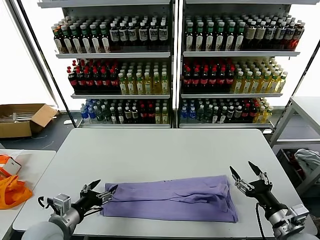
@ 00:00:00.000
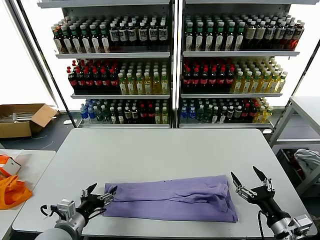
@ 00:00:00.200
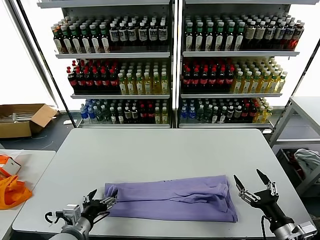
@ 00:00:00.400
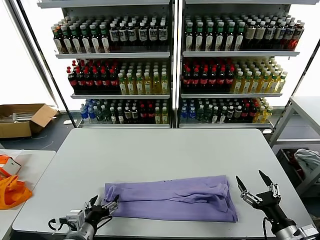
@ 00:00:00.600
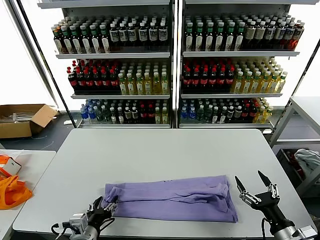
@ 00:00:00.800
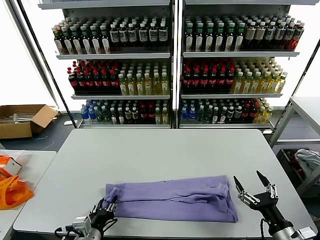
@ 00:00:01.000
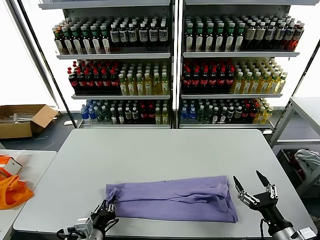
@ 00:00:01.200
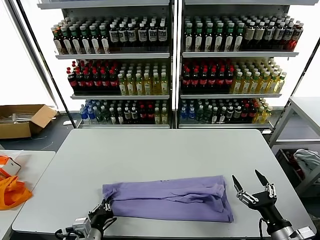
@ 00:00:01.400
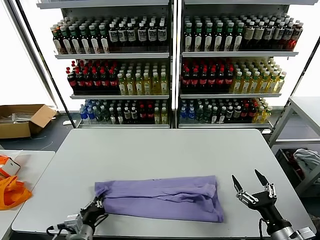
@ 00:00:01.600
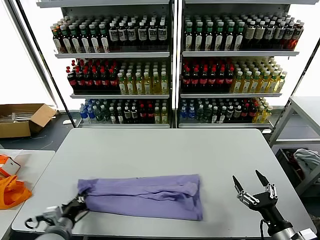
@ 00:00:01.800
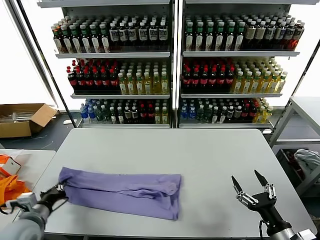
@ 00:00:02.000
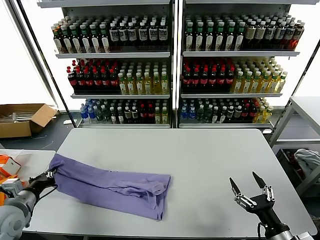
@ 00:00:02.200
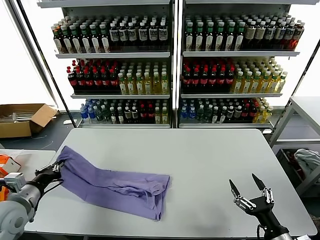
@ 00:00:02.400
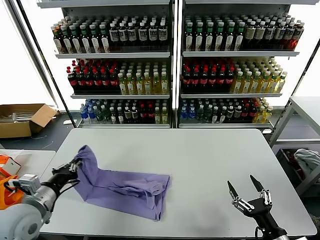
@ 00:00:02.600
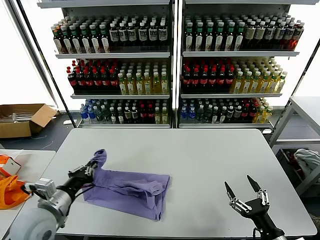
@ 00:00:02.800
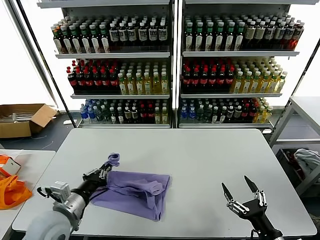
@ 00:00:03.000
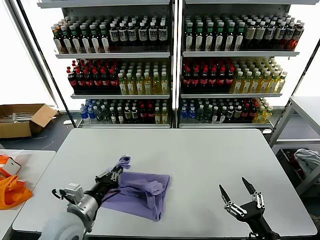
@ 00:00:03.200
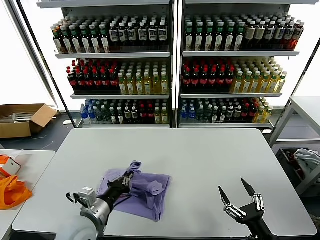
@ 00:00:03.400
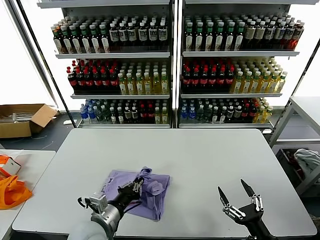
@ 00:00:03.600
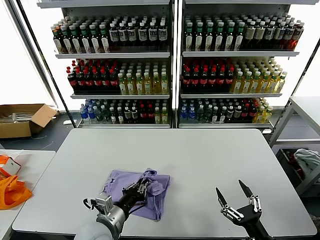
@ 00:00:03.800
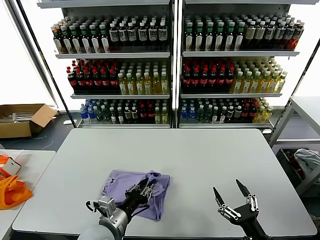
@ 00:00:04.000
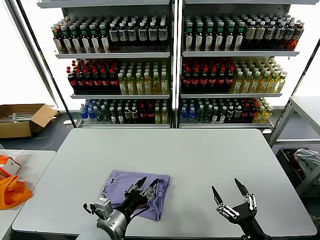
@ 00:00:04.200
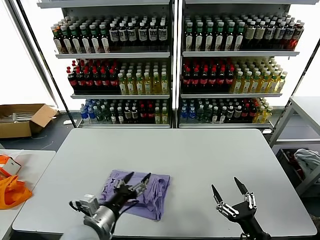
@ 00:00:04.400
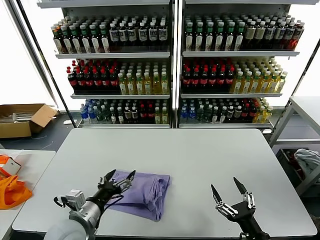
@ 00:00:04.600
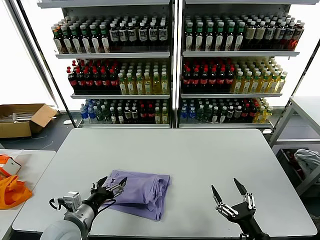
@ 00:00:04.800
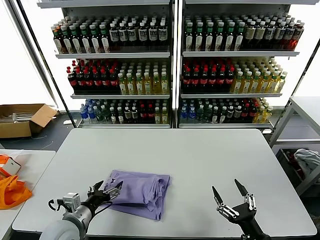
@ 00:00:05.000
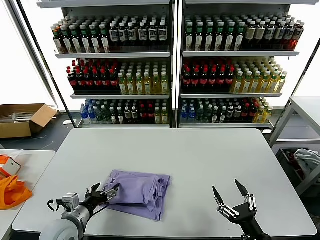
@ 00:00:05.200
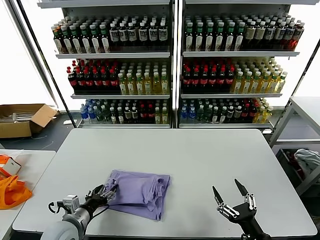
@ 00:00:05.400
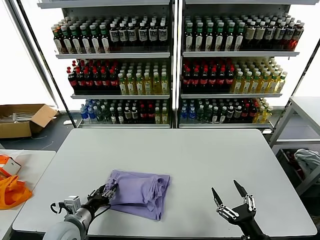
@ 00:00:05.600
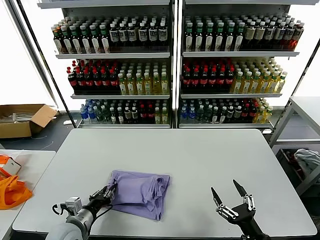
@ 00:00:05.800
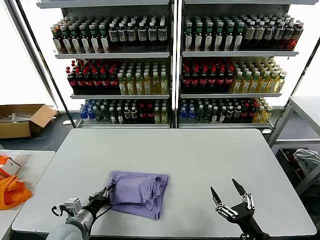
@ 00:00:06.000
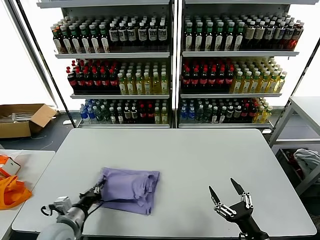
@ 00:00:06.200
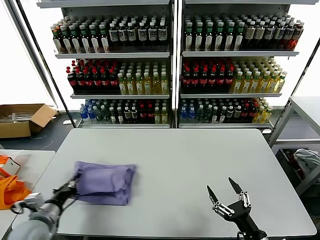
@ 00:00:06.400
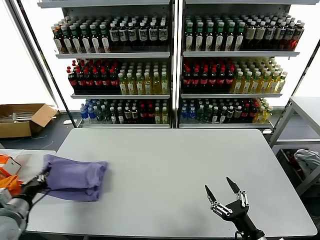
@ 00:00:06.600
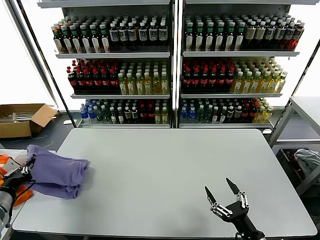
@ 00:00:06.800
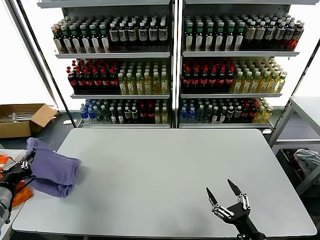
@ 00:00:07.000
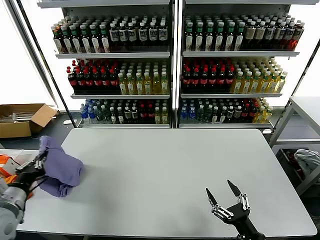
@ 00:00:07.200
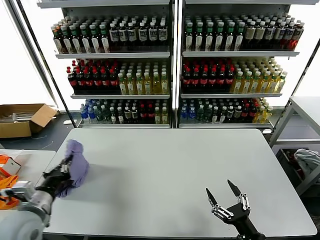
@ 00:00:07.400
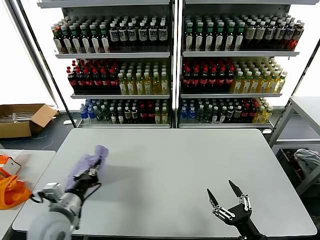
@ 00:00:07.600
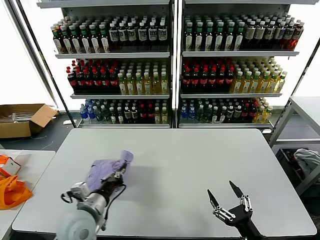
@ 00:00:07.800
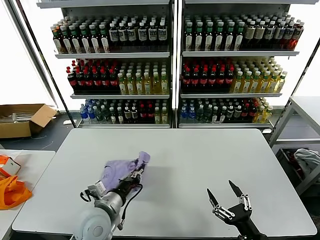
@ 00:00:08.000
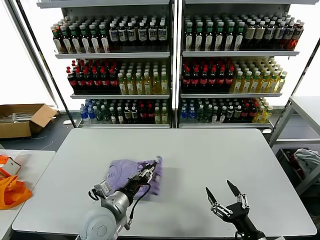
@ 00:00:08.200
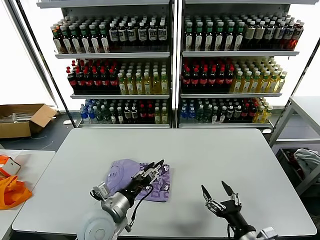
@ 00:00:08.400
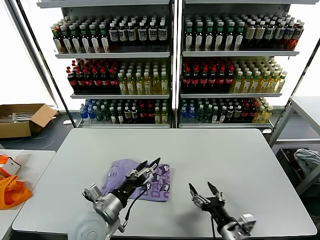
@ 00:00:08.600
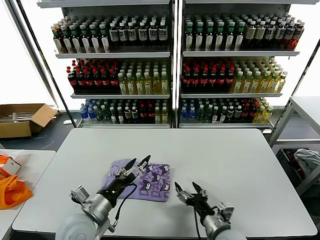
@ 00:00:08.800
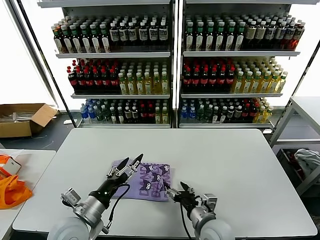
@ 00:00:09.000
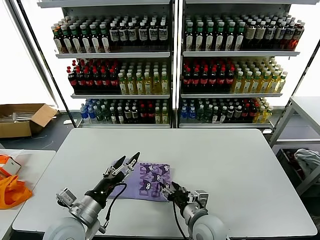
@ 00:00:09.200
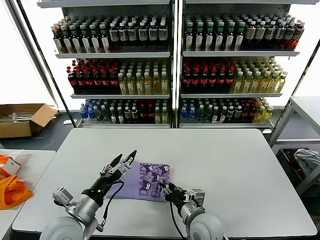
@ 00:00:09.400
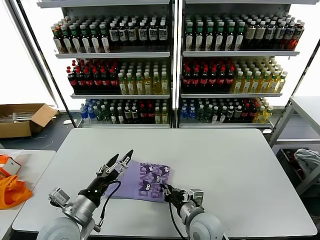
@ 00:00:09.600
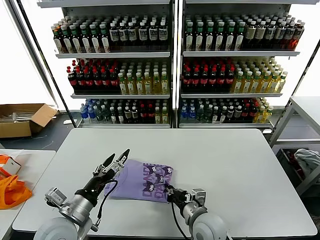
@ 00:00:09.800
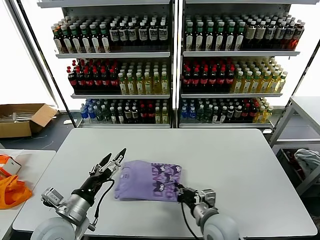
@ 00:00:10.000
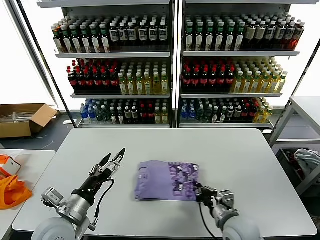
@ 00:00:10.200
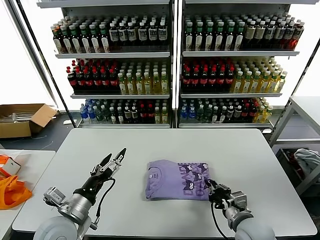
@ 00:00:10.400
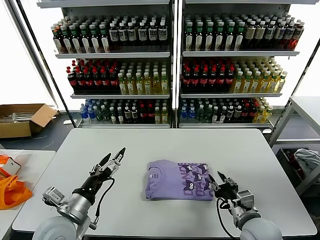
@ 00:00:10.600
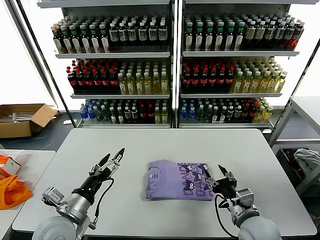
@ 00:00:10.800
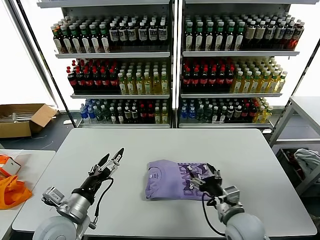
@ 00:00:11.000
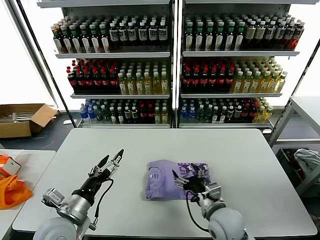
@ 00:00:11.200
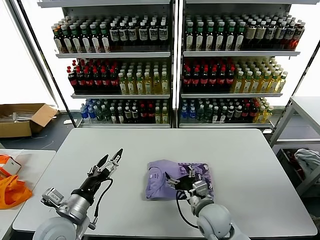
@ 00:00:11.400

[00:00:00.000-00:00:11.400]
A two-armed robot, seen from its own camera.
Task of the whole recording: fold and organize the clothes.
Step, 00:00:00.000 to 00:00:01.400: use the left gripper to clamp the left edge of the fabric.
Step, 00:00:01.600 to 00:00:04.000: use the left gripper to drag the left edge of the fabric to the left and folds it over the right edge.
Step, 00:00:04.200 to 00:00:08.000: Flip the folded clothes over with left gripper.
00:00:00.000 to 00:00:01.400: The left gripper moves to the right and downward, some 10 cm, and closes its fingers.
00:00:01.400 to 00:00:02.800: The left gripper travels upward, to the left and forward by some 15 cm.
00:00:02.800 to 00:00:04.200: The left gripper shifts roughly 15 cm to the right, and opens.
00:00:04.200 to 00:00:05.600: The left gripper shifts some 15 cm to the left and downward, and opens and closes again.
00:00:05.600 to 00:00:07.200: The left gripper is displaced to the left and upward by about 20 cm, and closes.
00:00:07.200 to 00:00:08.600: The right gripper moves to the left and forward, some 10 cm; the left gripper goes about 25 cm to the right, and opens up.
00:00:08.600 to 00:00:10.000: The right gripper goes some 10 cm forward and to the left, and closes its fingers. The left gripper goes roughly 5 cm to the left.
00:00:10.000 to 00:00:11.400: The right gripper reaches roughly 10 cm to the right, then returns, and opens its fingers.

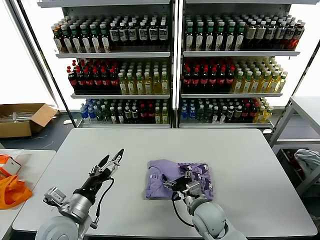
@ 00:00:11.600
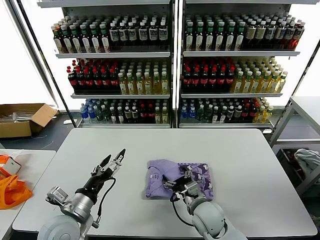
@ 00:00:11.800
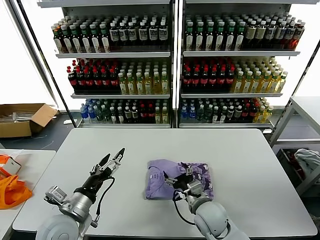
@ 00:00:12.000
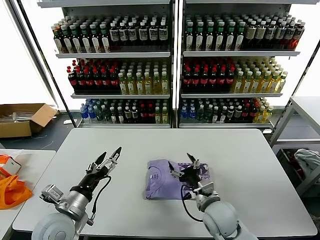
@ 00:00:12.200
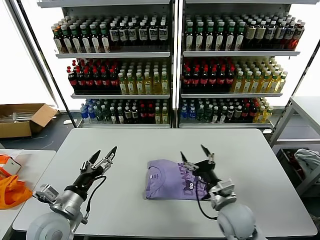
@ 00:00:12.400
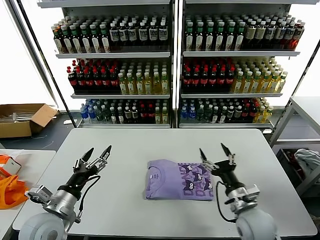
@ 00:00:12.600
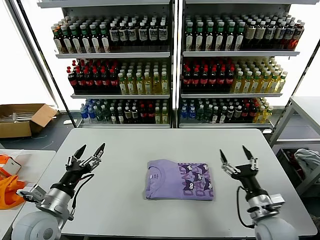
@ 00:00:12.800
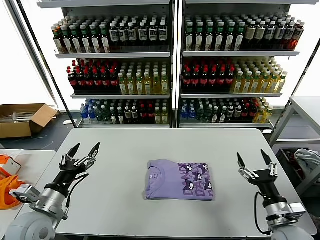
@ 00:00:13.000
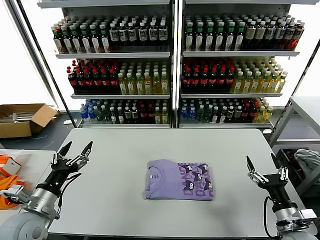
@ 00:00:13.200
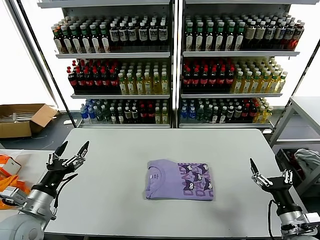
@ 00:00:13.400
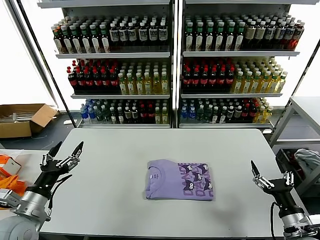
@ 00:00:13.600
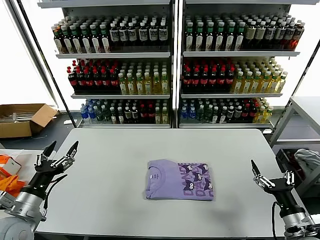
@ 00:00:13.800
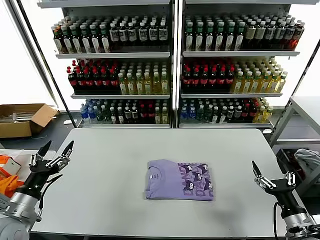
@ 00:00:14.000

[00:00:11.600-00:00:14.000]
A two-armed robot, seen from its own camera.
Task of the whole recording: fold and organize the clothes.
00:00:11.600 to 00:00:12.800: The left gripper ends up approximately 5 cm from where it was; the right gripper heads to the right, covering roughly 15 cm.
00:00:12.800 to 00:00:14.000: The right gripper moves to the right and backward, about 10 cm; the left gripper is displaced to the left by about 5 cm.
